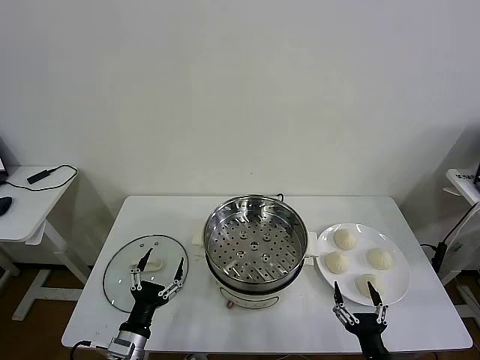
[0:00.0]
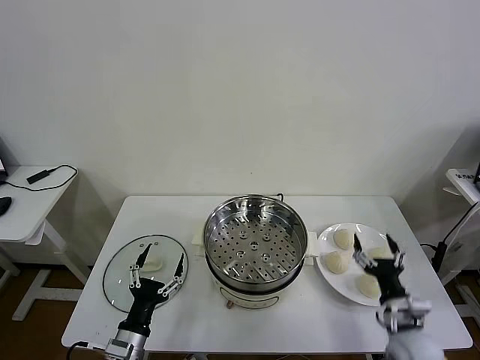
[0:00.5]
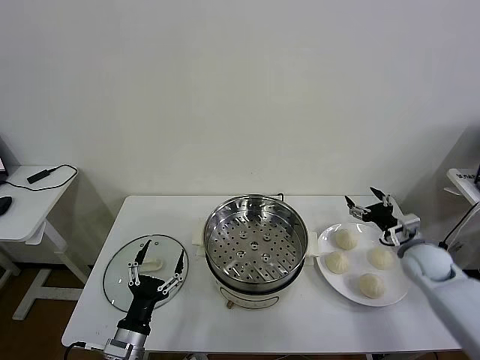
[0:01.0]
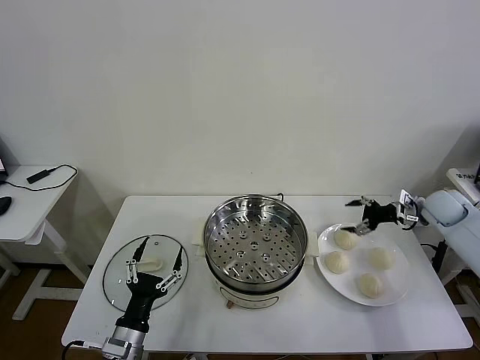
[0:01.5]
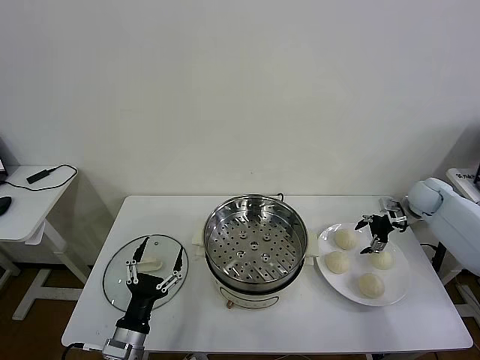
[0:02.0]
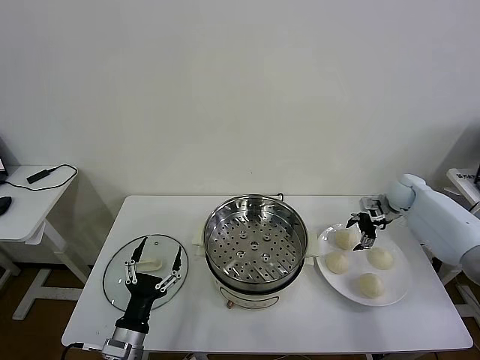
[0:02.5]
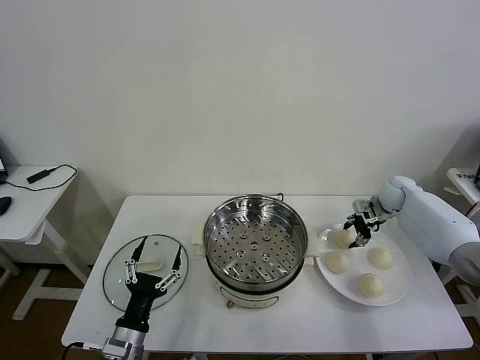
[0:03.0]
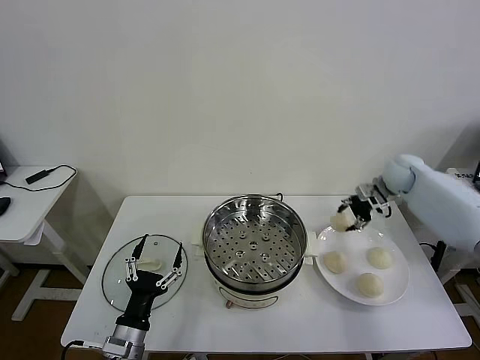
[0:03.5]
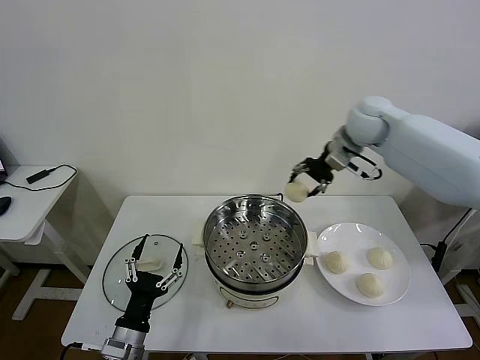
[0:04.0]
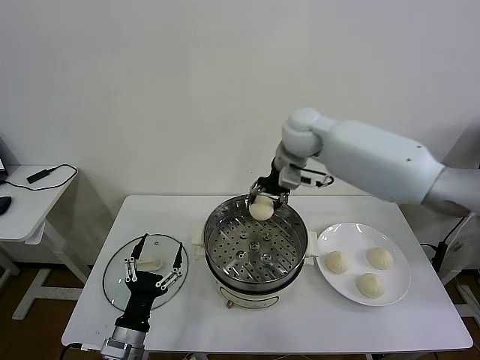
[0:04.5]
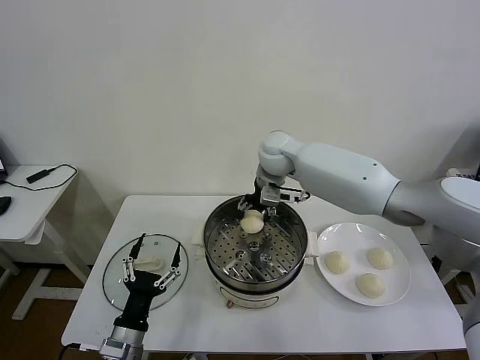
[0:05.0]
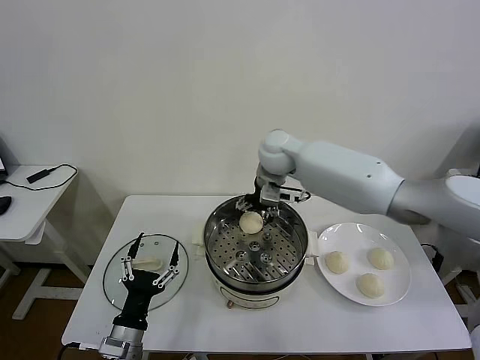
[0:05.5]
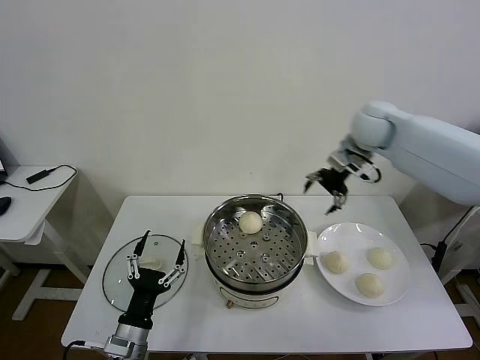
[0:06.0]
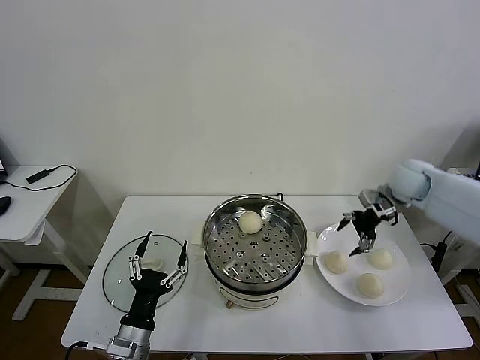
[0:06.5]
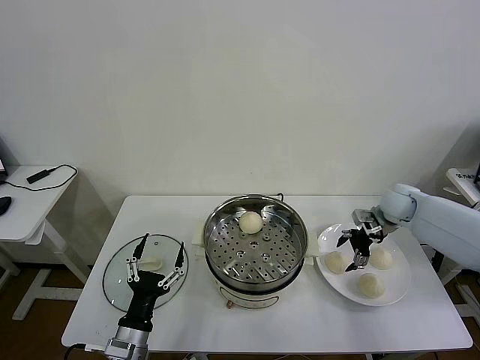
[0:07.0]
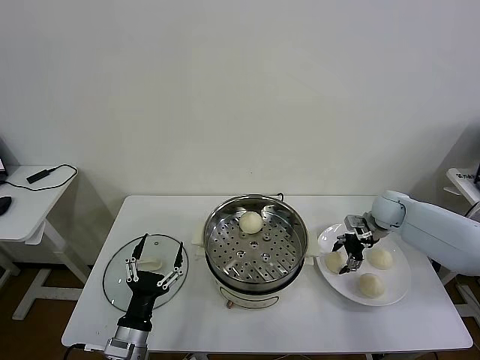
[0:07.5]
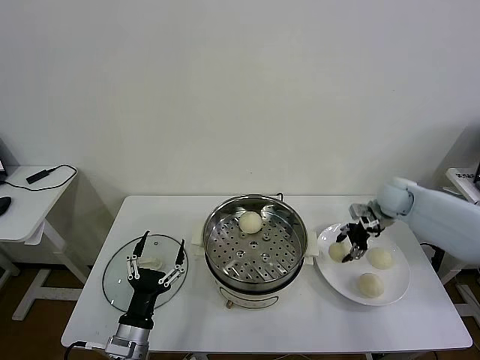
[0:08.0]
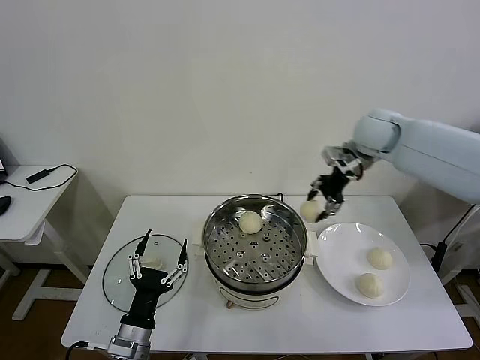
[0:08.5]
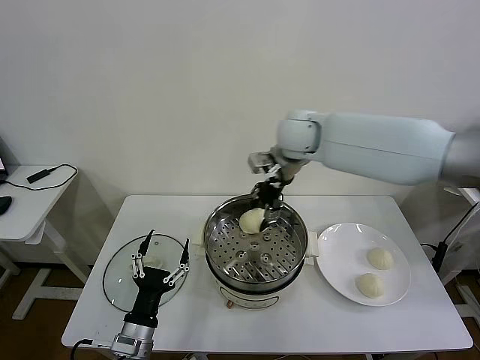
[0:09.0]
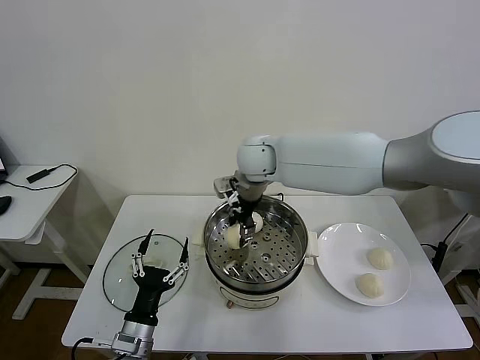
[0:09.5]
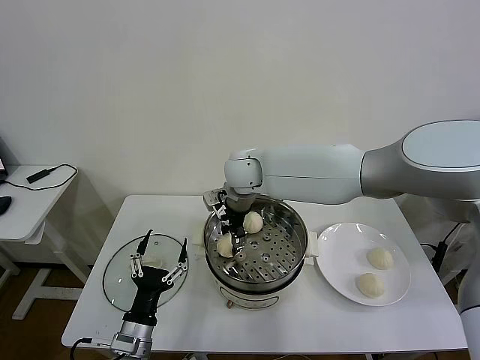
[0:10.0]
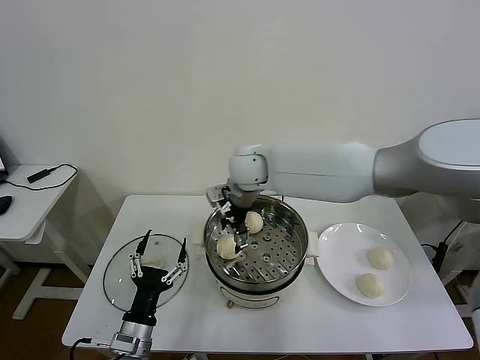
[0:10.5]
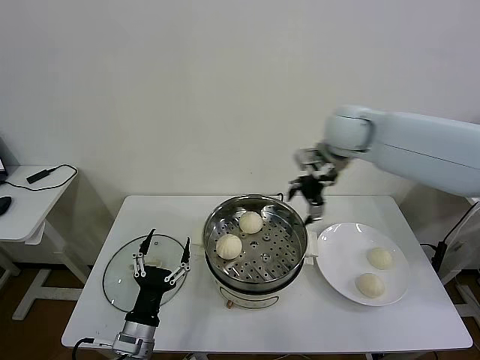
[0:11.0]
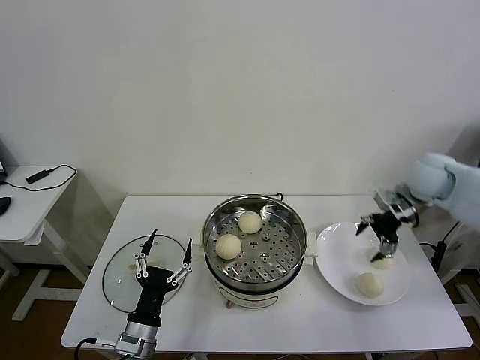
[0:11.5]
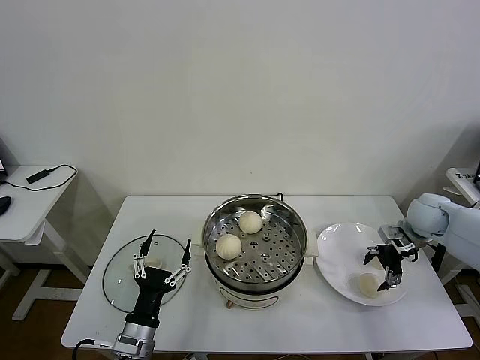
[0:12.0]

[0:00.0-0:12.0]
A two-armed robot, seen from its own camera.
Task of the whole recording: take steamed baozi put them in steamer then cover it.
Step, 0:00.0 to 0:03.0: Grasp the baozi in the plate with right gripper.
Step, 0:03.5 to 0:05.0: Place the baozi on the steamer with right gripper.
Step, 0:05.5 to 0:07.5: Grasp the baozi in the plate with right gripper.
Step, 0:08.0 to 0:10.0: Place the baozi on the steamer with right gripper.
0:02.0 to 0:04.0: The right gripper heads to the left and upward, covering some 30 cm, and closes up.
0:04.0 to 0:06.0: The right gripper heads to the right, covering some 10 cm, and opens up.
0:06.0 to 0:08.0: The right gripper goes approximately 15 cm downward and to the right, and closes its fingers.
0:08.0 to 0:10.0: The right gripper heads to the left, covering roughly 40 cm.
0:10.0 to 0:12.0: The right gripper moves to the right, roughly 40 cm, and opens up.

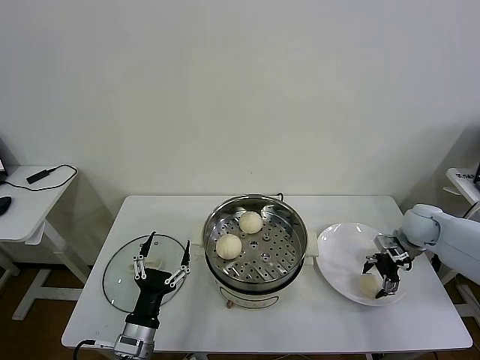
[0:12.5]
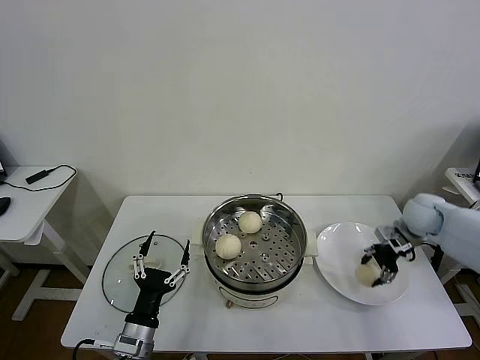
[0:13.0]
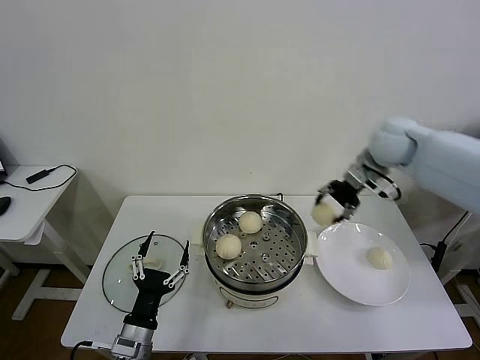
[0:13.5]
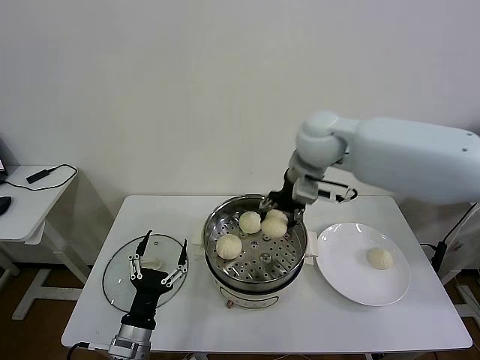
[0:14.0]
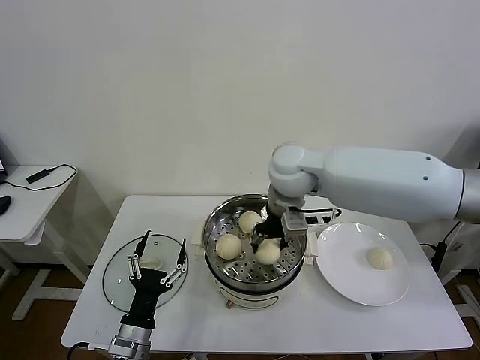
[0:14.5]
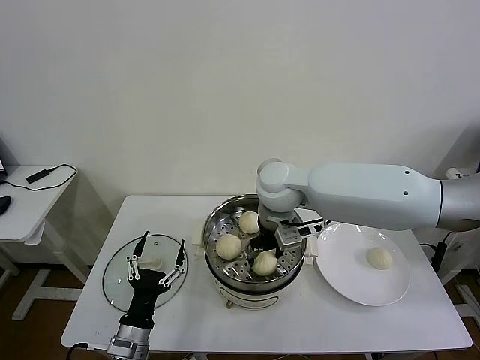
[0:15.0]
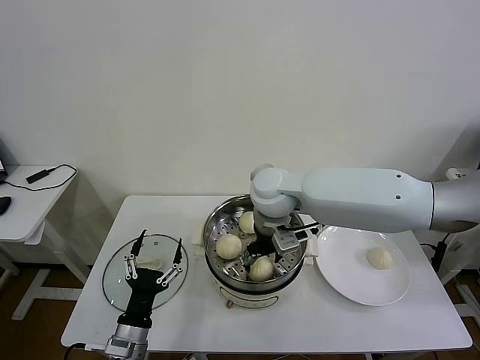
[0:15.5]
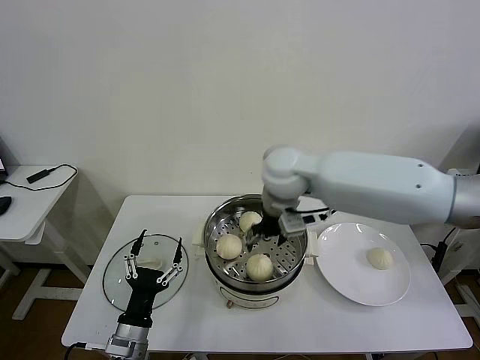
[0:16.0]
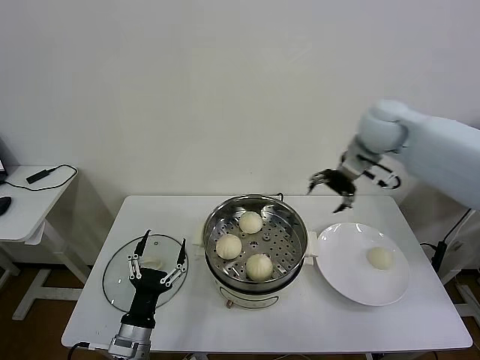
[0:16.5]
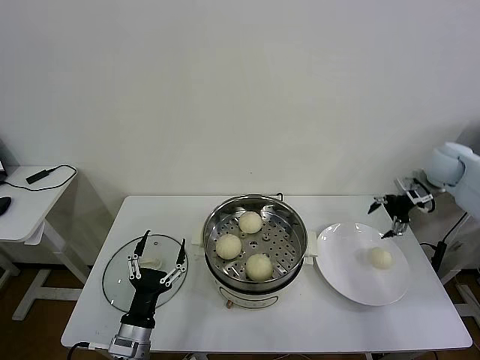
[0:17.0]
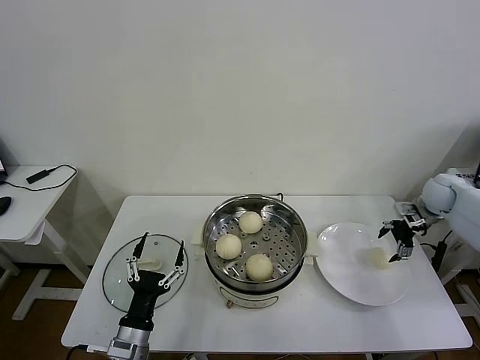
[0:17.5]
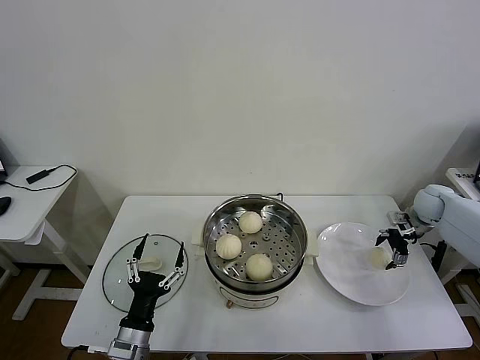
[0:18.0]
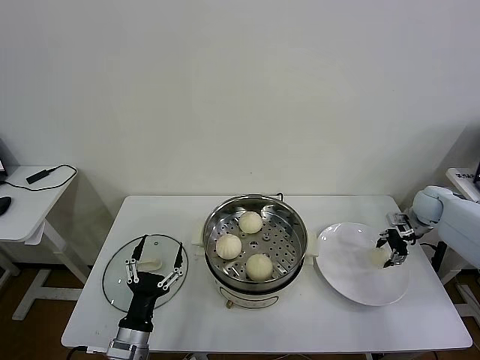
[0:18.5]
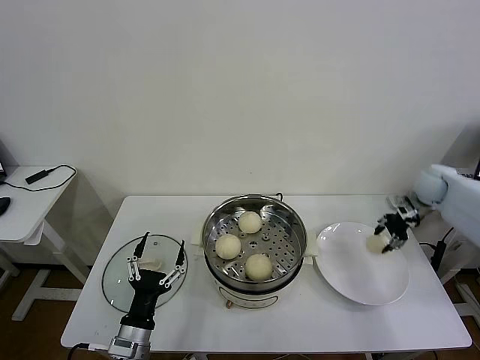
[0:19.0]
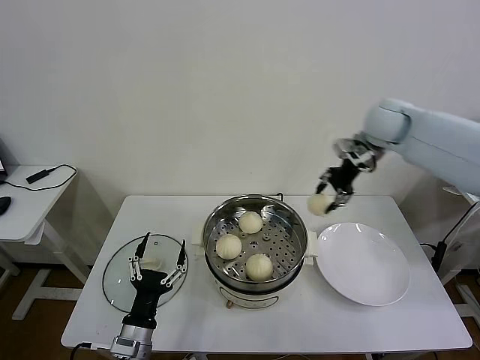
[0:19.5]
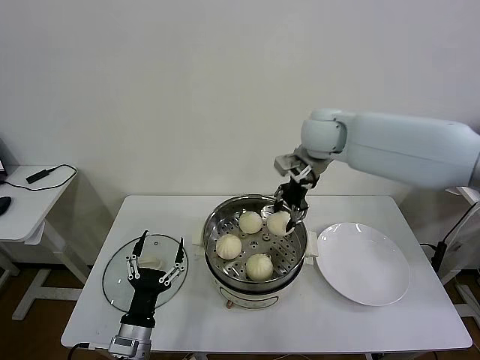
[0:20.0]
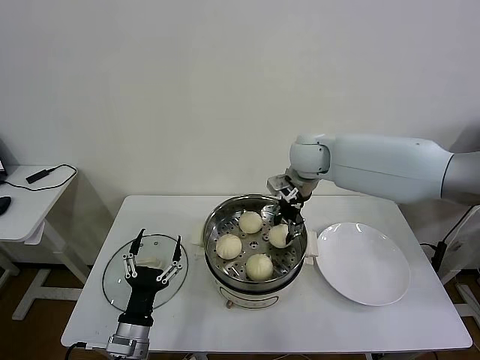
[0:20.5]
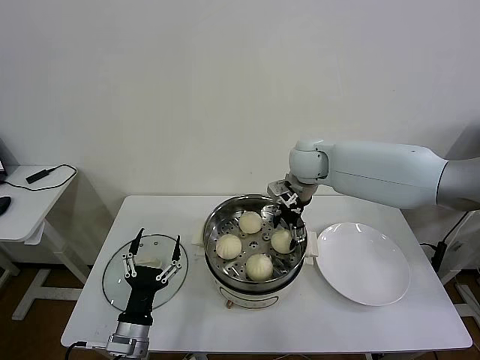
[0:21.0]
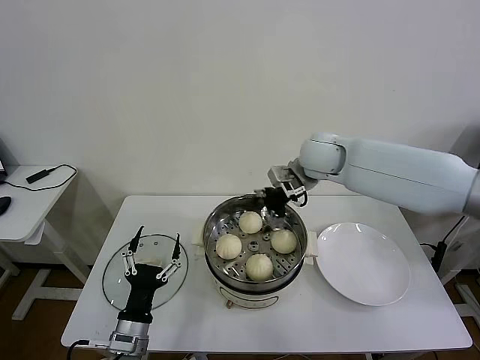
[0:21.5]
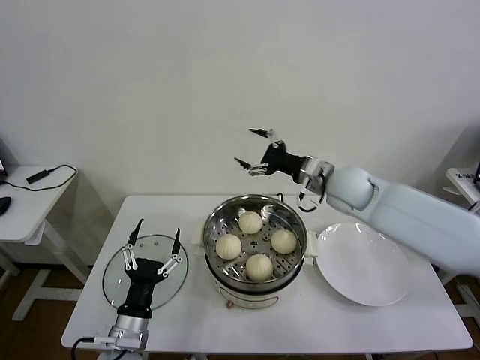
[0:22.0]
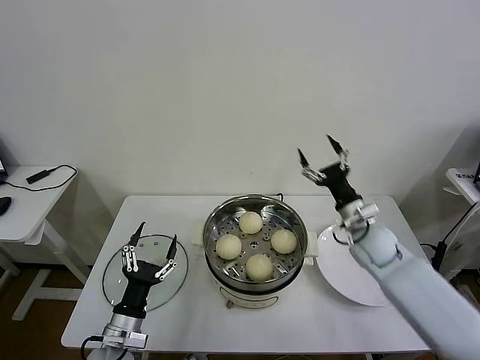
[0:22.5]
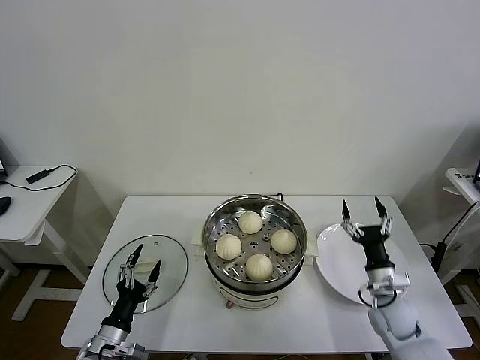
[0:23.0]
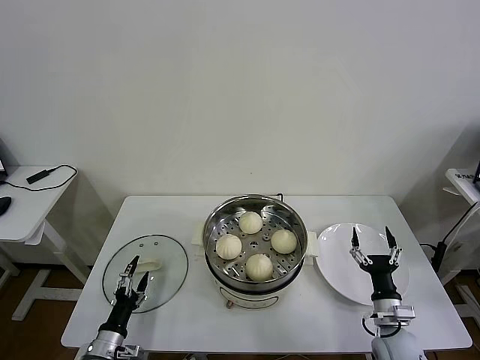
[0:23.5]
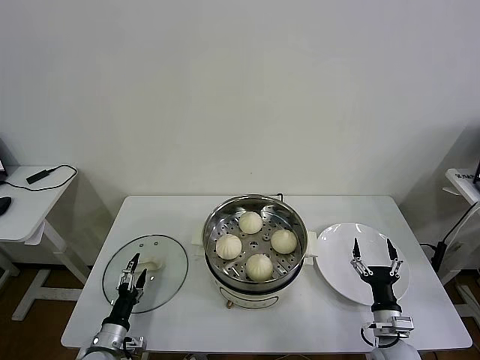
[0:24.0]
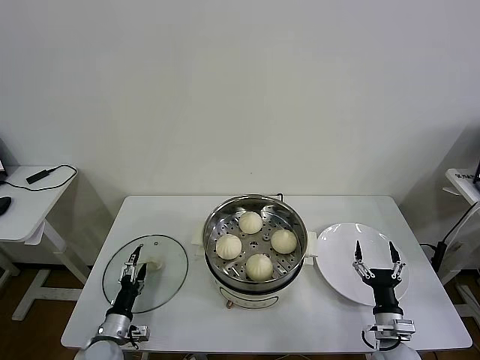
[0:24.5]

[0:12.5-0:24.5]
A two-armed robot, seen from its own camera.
Task of the whole recording: take steamed baozi put them in steamer then cover it.
Step, 0:13.0 to 0:15.5: Place the baozi on the steamer with right gripper.
Step, 0:16.0 to 0:18.5: Grasp the baozi in the plate with right gripper.
Step, 0:19.0 to 0:21.0: Place the baozi on the steamer with right gripper.
0:12.5 to 0:14.5: The right gripper is displaced to the left and upward by roughly 40 cm, and closes up.
0:14.5 to 0:16.5: The right gripper moves to the right, approximately 20 cm, and opens up.
0:16.5 to 0:18.5: The right gripper moves downward and to the right, about 30 cm, and closes.
0:18.5 to 0:20.5: The right gripper heads to the left and upward, covering about 40 cm.
0:20.5 to 0:22.5: The right gripper goes approximately 25 cm downward, to the right and backward, and opens up.
0:22.5 to 0:24.5: The left gripper goes about 15 cm downward and to the left; the right gripper travels backward and downward by about 25 cm.

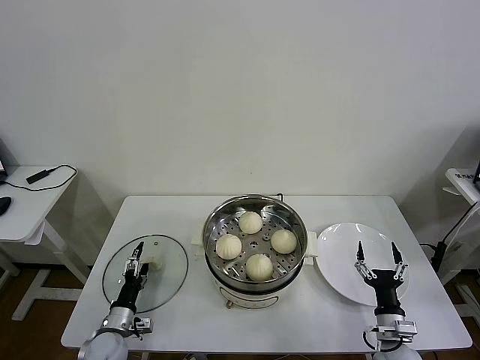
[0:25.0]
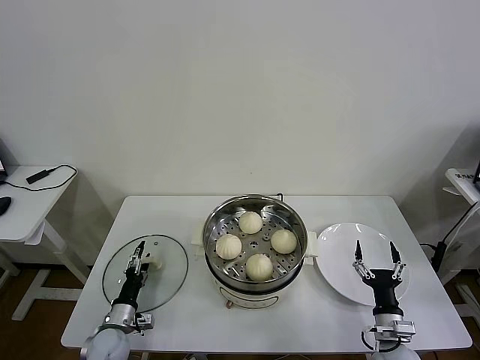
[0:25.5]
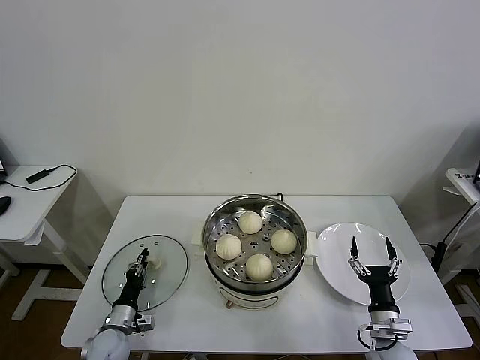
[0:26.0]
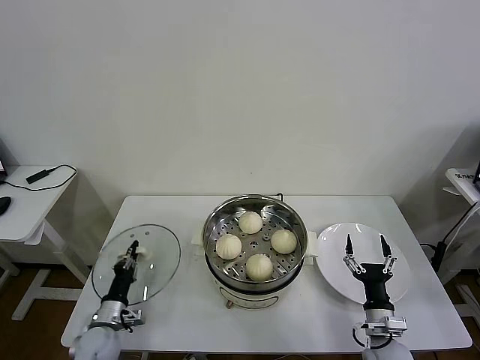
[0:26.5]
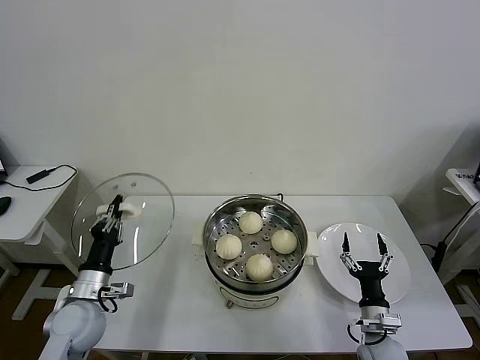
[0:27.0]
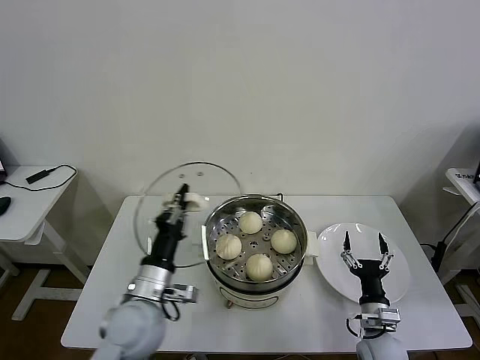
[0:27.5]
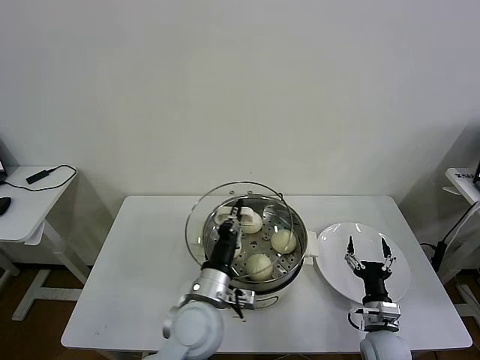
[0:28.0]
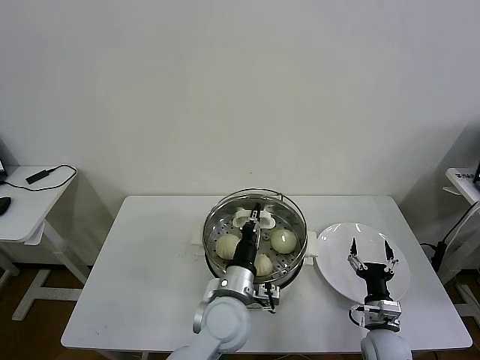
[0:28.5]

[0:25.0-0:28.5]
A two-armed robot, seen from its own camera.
Task of the whole recording: take steamed baozi put them in steamer then cover it.
0:25.0 to 0:27.0: The left gripper shifts approximately 15 cm upward, and closes up.
0:27.0 to 0:28.5: The left gripper goes some 30 cm to the right.
